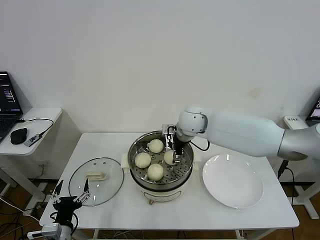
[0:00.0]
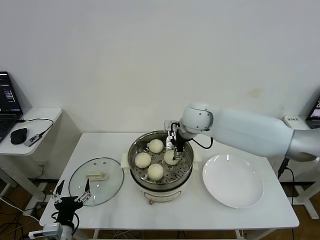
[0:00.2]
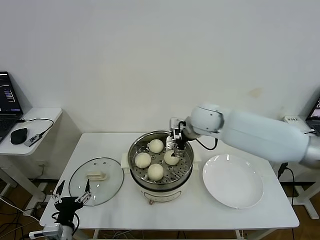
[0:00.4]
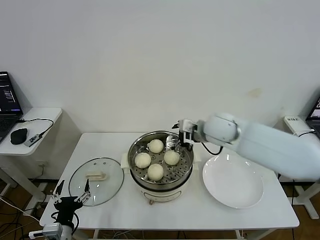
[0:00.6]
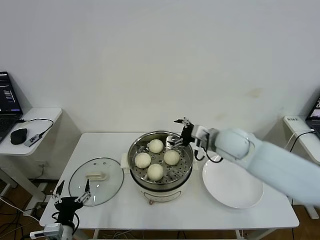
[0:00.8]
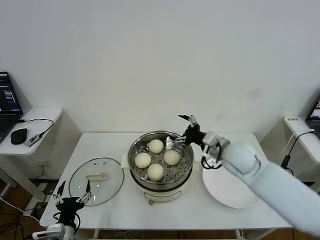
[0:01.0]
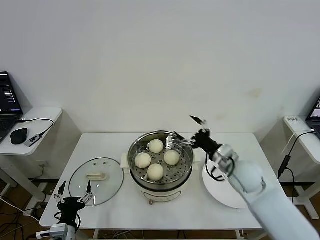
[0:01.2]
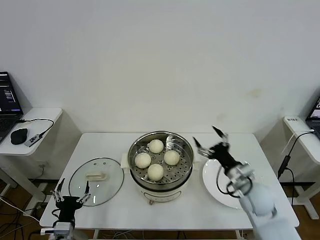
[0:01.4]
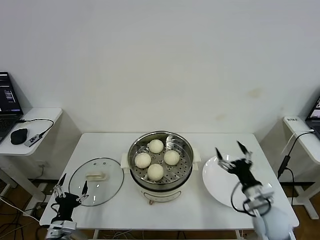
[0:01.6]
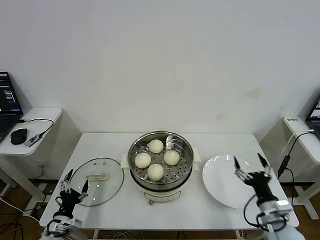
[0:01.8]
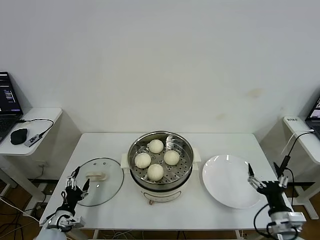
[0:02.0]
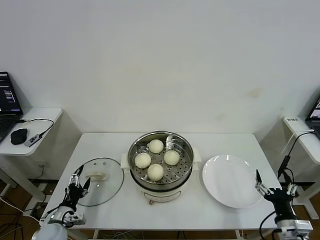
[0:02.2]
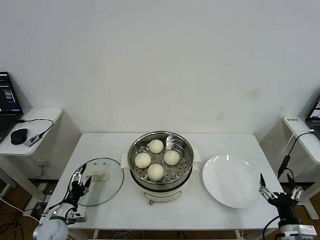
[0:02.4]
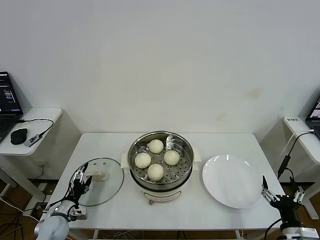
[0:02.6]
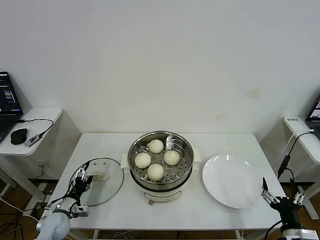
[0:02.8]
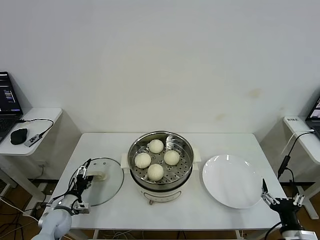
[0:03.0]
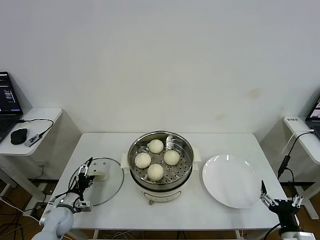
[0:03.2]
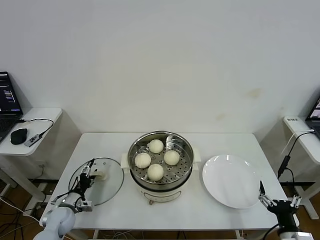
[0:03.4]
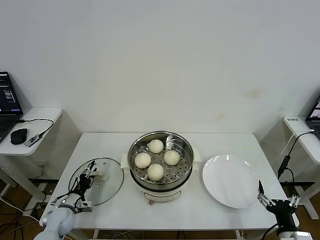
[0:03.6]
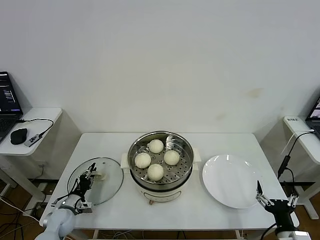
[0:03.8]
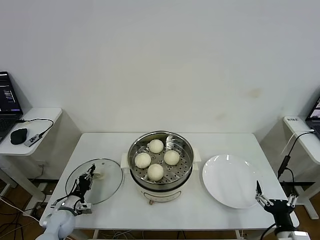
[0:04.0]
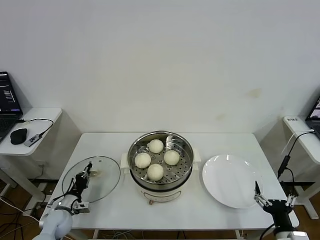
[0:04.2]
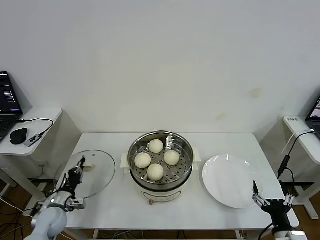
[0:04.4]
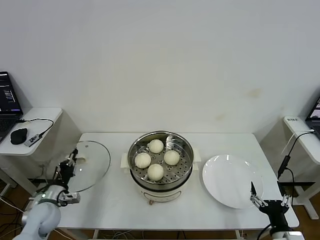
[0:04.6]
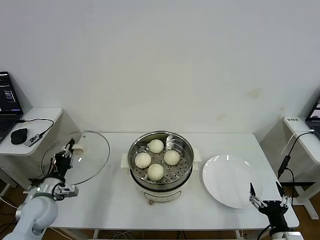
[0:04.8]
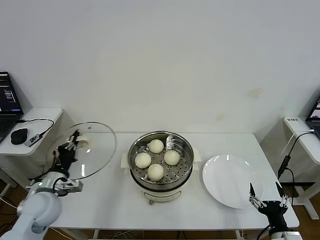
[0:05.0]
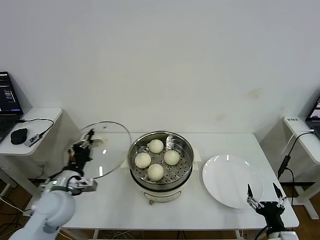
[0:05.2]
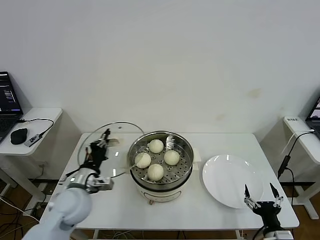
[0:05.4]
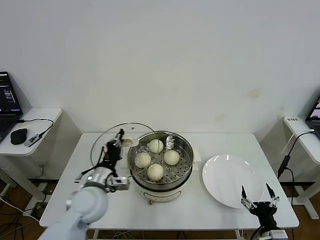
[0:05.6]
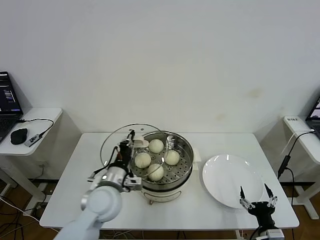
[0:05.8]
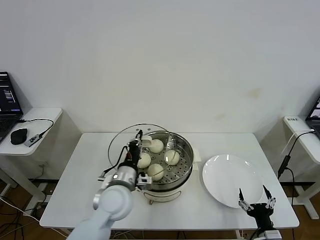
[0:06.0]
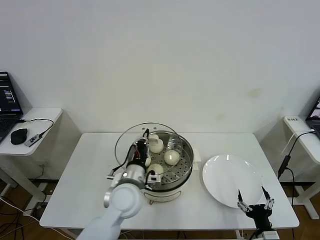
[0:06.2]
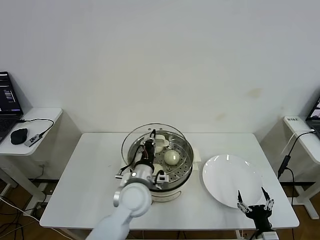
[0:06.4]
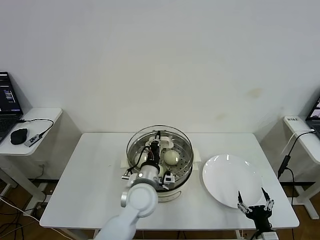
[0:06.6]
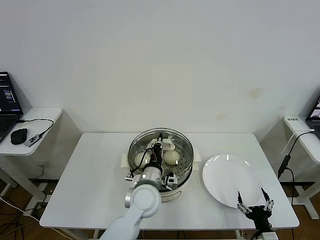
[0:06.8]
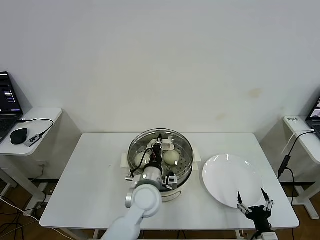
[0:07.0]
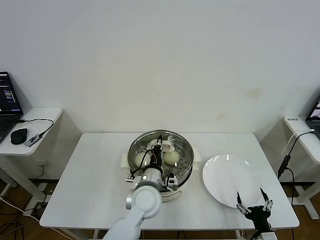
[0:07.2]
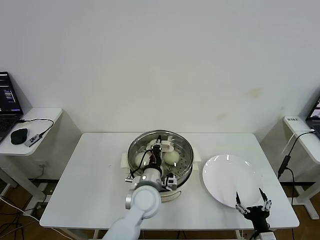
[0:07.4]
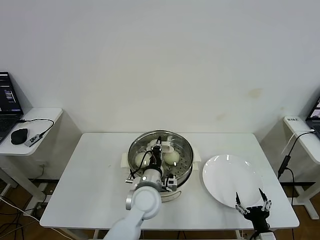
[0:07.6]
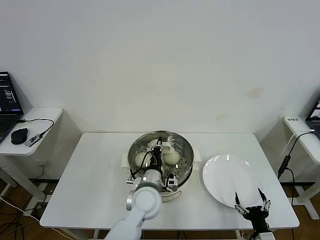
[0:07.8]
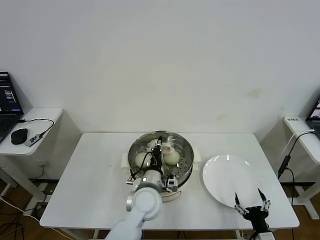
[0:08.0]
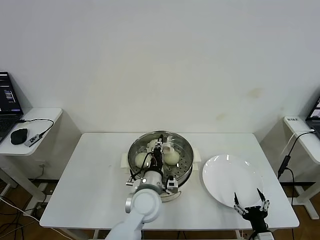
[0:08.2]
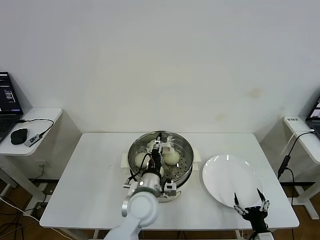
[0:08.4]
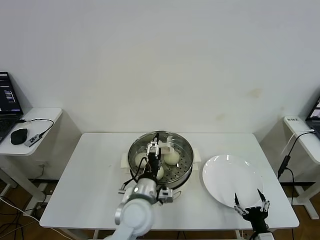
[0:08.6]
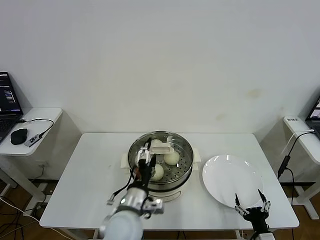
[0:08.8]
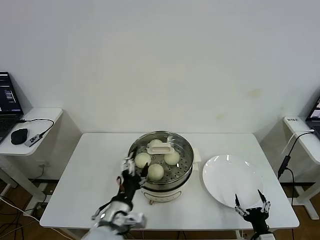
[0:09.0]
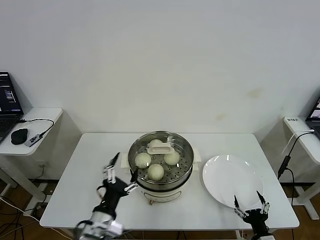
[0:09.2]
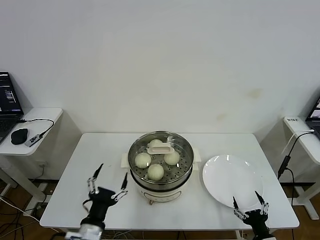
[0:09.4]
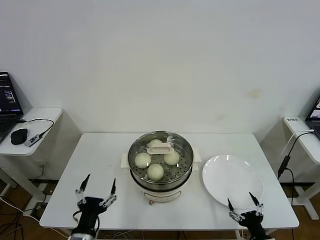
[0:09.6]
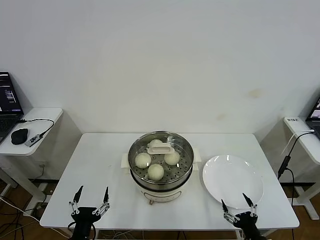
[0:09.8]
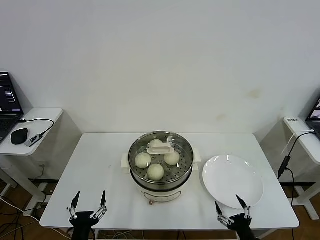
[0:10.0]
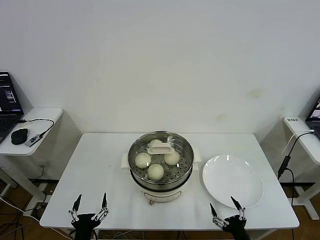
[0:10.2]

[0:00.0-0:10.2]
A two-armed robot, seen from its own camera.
Task of the whole recording: take steamed baozi put them in steamer then cover it.
Step, 0:00.2 to 0:04.0: Grasp the pot lid with left gripper.
Step, 0:04.2 to 0:08.4: Place the pot lid on the steamer with left gripper.
0:00.0 to 0:01.4: The right gripper is displaced backward, to the right and downward by roughly 30 cm.
0:01.4 to 0:03.0: The right gripper moves backward and to the right, about 20 cm; the left gripper goes some 15 cm forward, to the left and downward.
0:03.0 to 0:04.4: The left gripper closes up.
0:04.4 to 0:05.8: The left gripper shifts about 30 cm to the right and upward.
0:05.8 to 0:07.2: The left gripper travels to the right by roughly 15 cm.
0:07.2 to 0:08.8: The left gripper shifts some 5 cm backward, and opens.
0:08.8 to 0:10.2: The left gripper shifts about 25 cm to the left, backward and downward.
